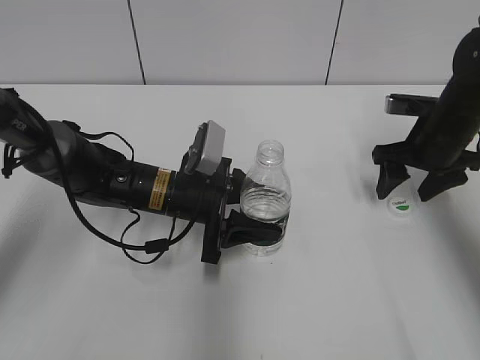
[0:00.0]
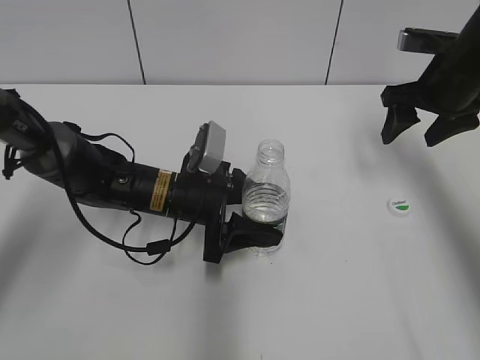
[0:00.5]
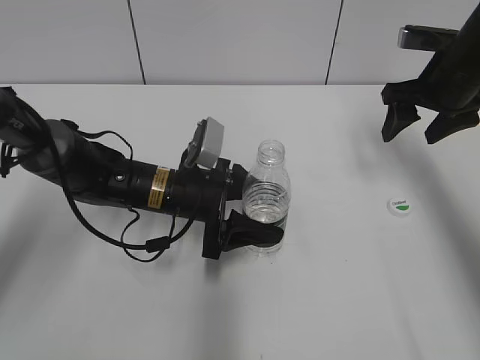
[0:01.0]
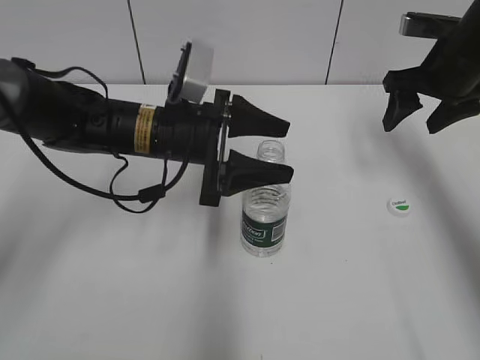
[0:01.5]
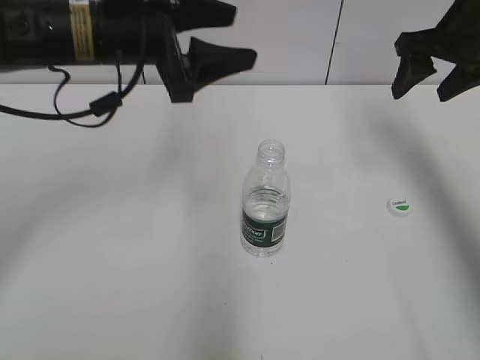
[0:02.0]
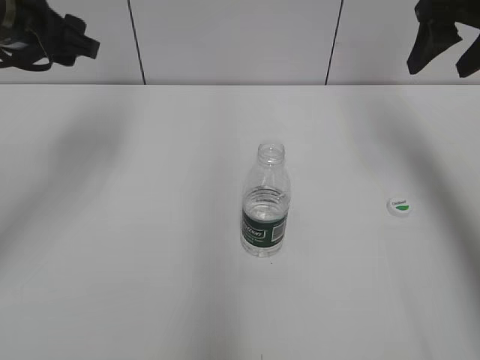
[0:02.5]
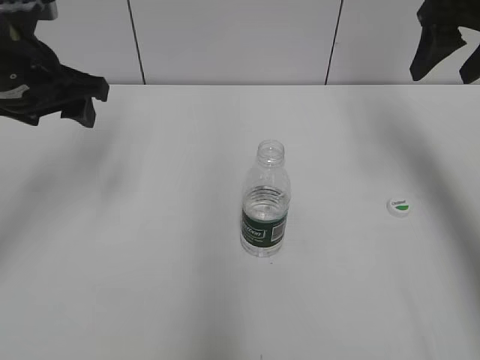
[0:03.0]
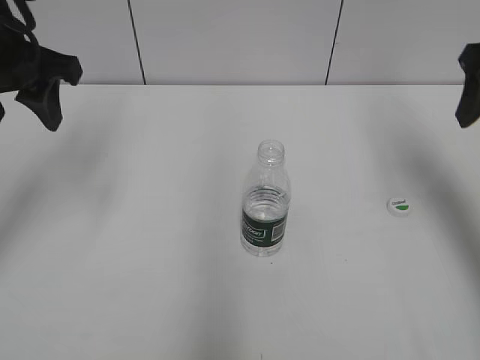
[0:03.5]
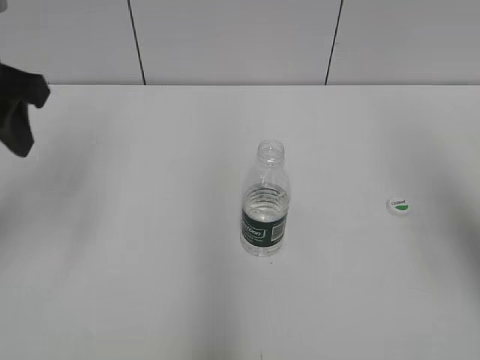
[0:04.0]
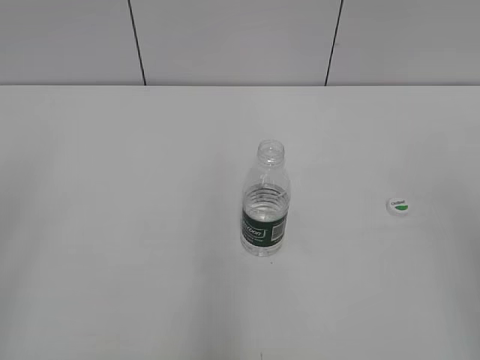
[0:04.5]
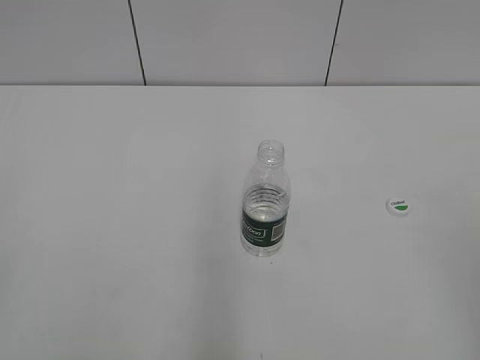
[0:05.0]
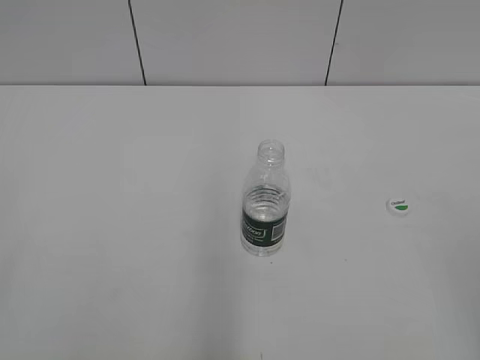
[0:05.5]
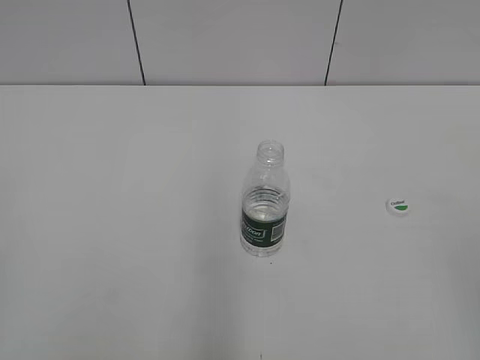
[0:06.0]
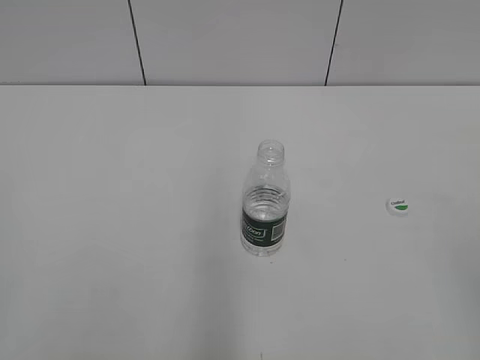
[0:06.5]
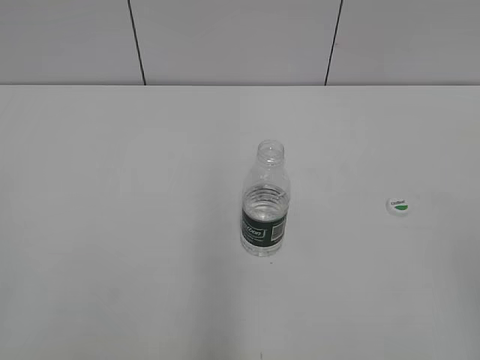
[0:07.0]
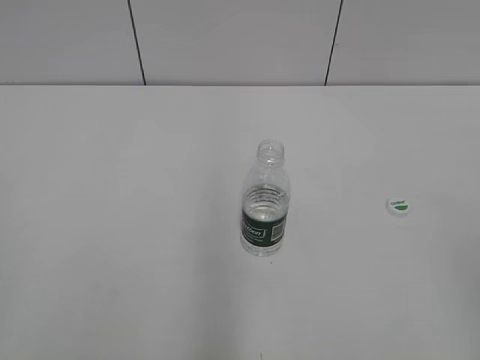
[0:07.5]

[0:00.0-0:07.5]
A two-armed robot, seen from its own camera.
Step, 0:00.0 to 0:01.5: Place the bottle on the table with the left gripper.
0:00.0 to 0:02.0: Both grippers move upward, roughly 15 cm.
0:02.0 to 0:04.0: The right gripper shifts about 20 cm backward and upward. The left gripper shifts about 15 cm to the left and upward.
0:04.0 to 0:05.5: The two grippers go about 25 cm backward.
